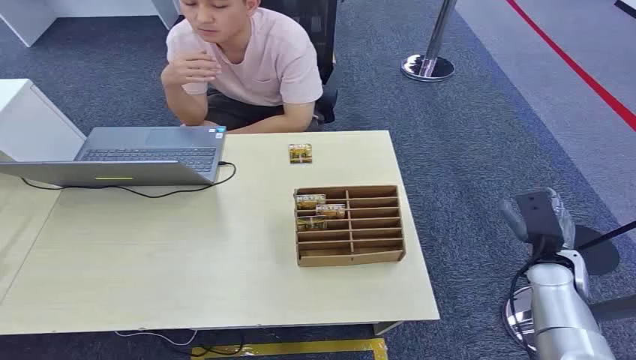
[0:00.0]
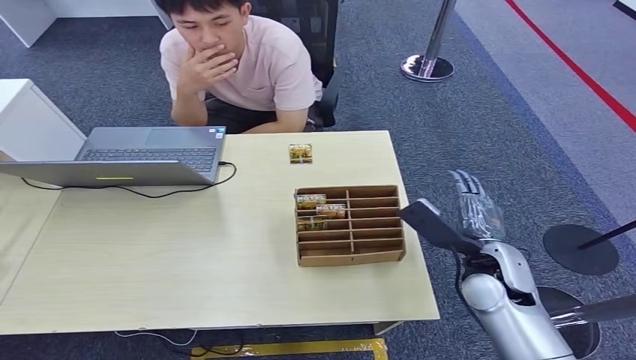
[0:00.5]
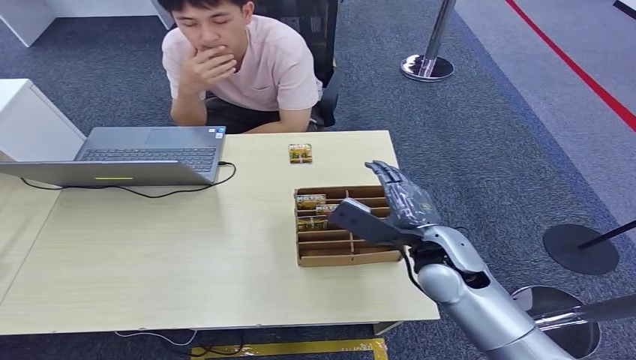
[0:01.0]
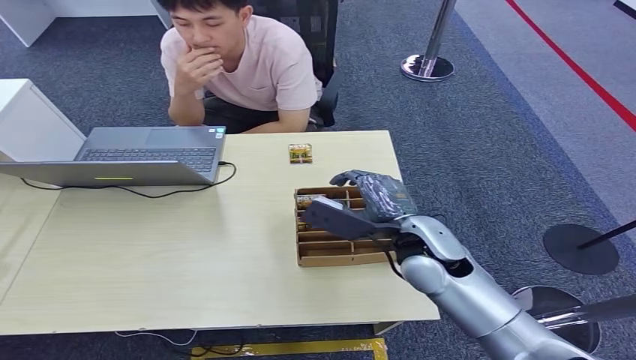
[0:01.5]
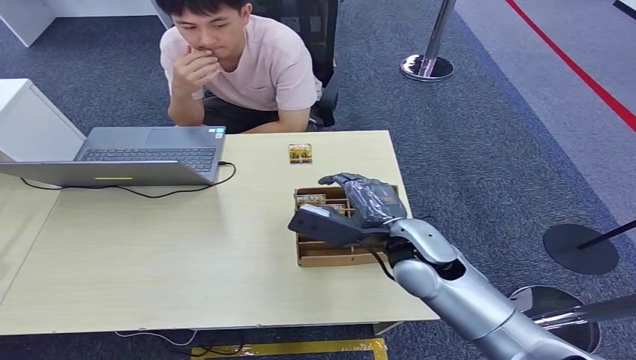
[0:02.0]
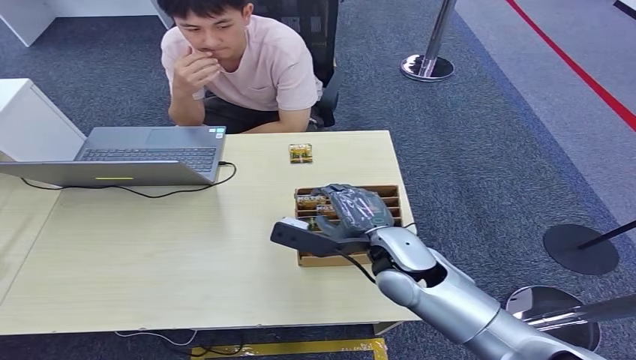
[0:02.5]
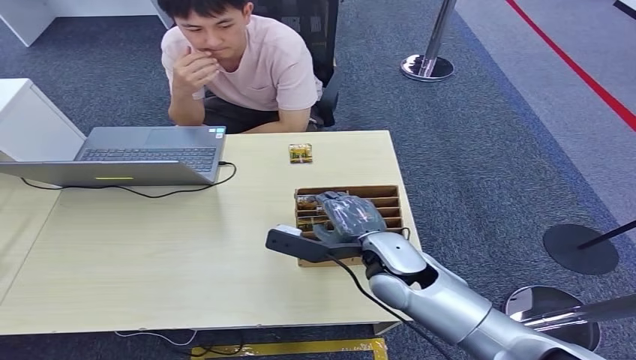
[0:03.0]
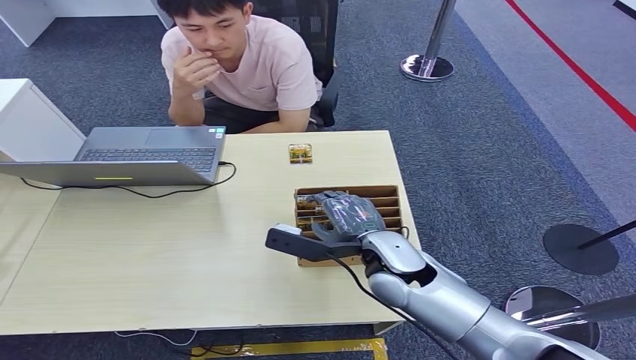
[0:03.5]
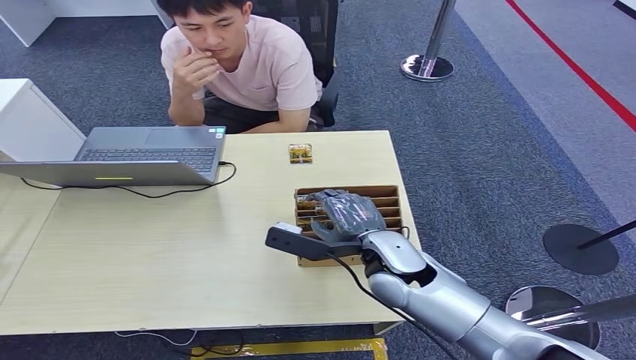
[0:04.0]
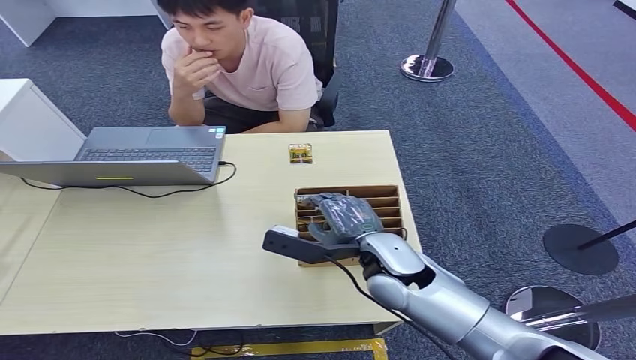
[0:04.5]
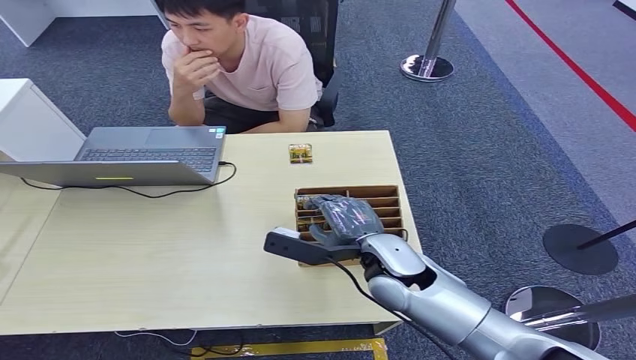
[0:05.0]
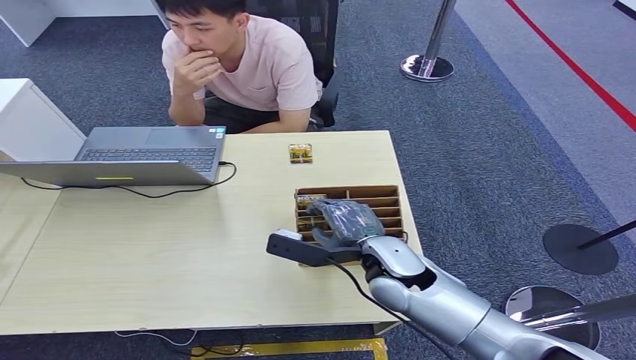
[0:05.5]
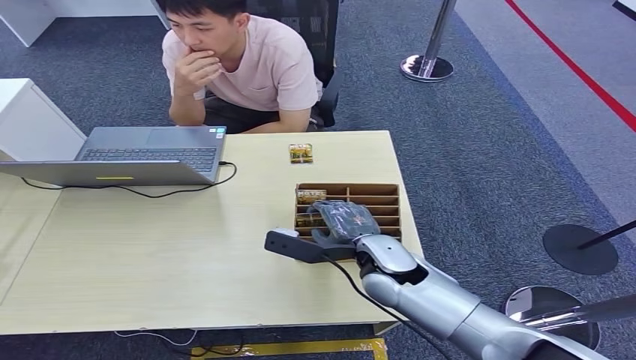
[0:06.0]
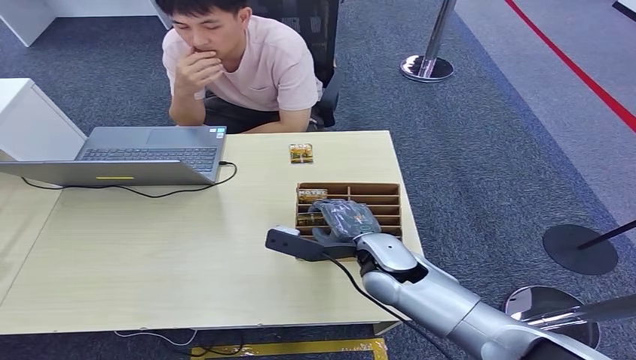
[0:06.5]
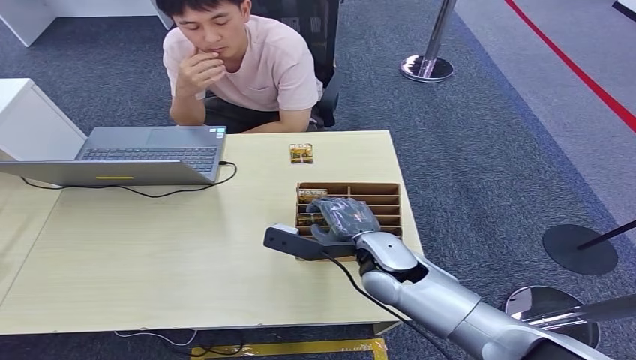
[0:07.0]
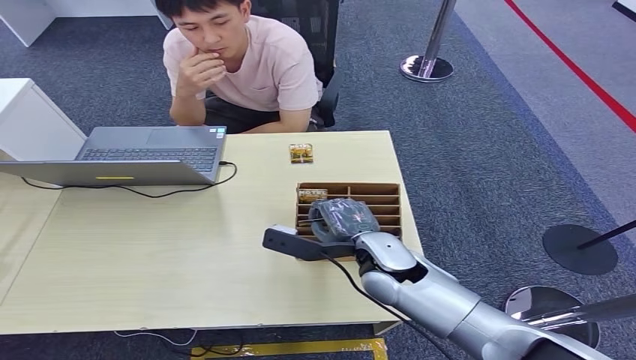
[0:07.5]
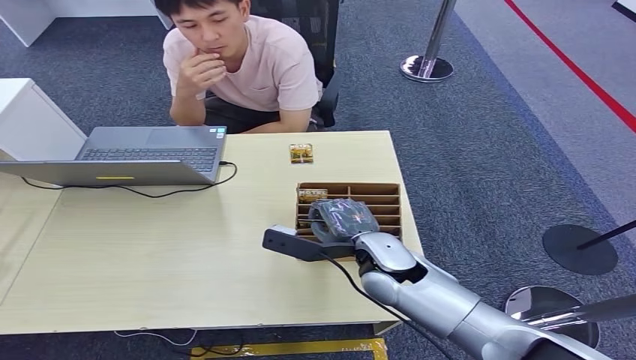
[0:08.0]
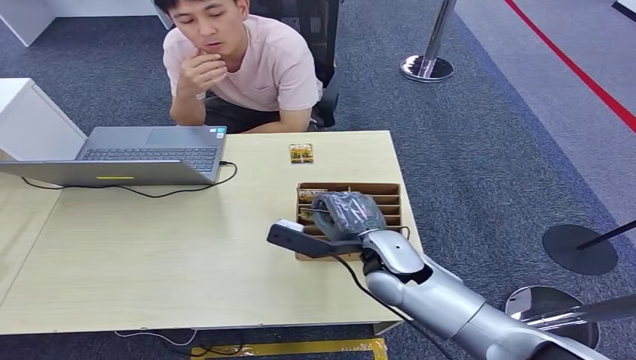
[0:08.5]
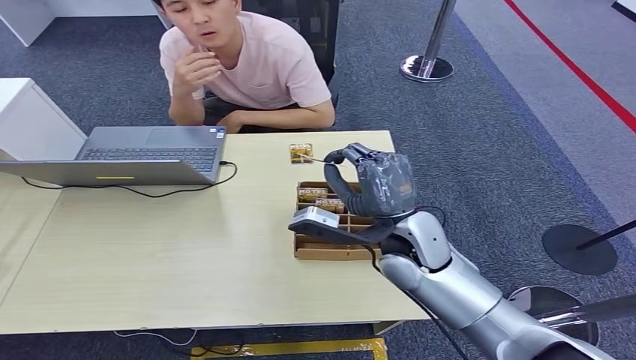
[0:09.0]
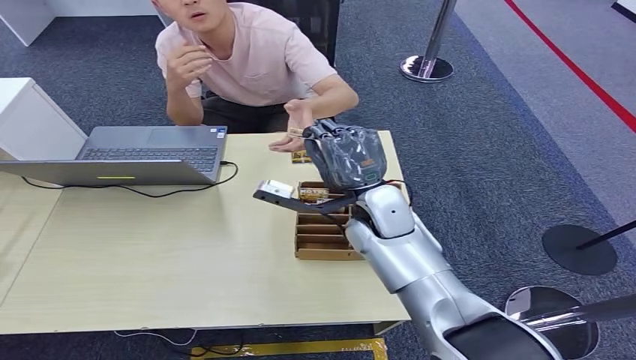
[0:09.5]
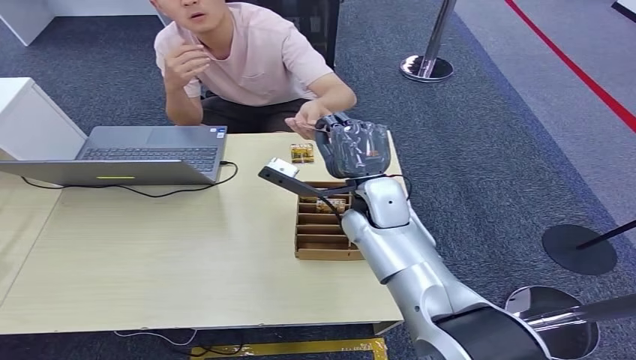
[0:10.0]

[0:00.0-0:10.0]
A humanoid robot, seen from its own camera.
Task of the whole recording: Pick up the card and hand it over to the target person.
Step, 0:00.0 to 0:09.0: Pick up the key card from the card box.
Step, 0:09.5 to 0:10.0: Hand the key card to the target.
0:02.0 to 0:08.0: The hands move only a little.
0:08.0 to 0:10.0: The right hand heads forward and upward, covering approximately 15 cm.
